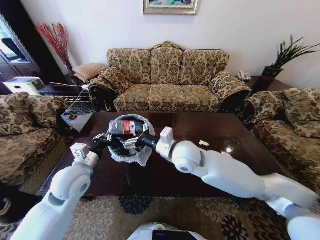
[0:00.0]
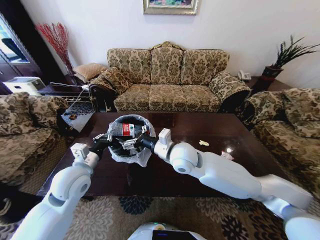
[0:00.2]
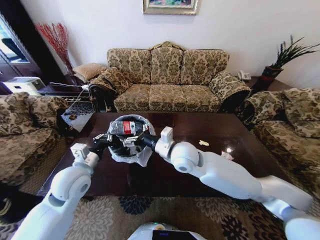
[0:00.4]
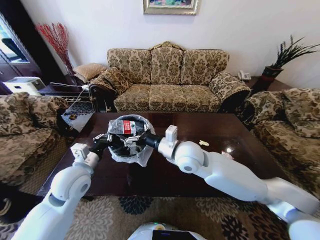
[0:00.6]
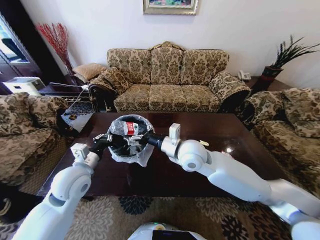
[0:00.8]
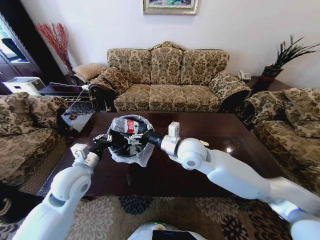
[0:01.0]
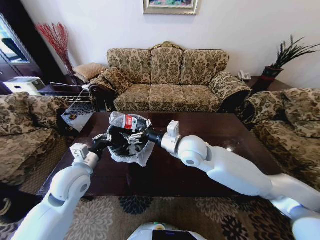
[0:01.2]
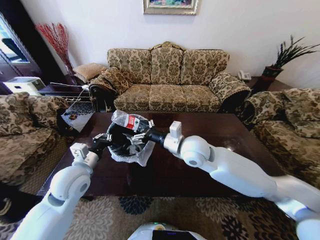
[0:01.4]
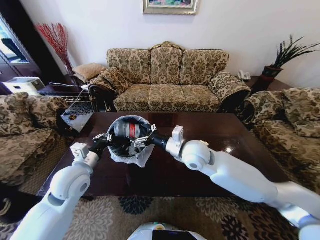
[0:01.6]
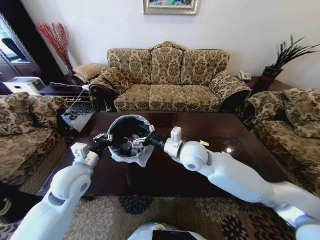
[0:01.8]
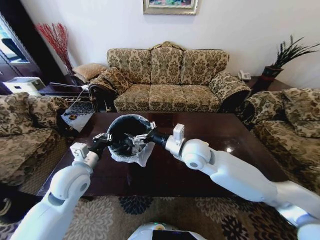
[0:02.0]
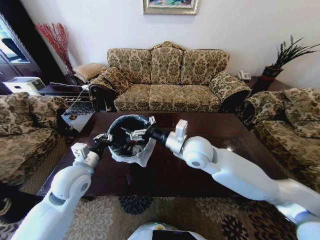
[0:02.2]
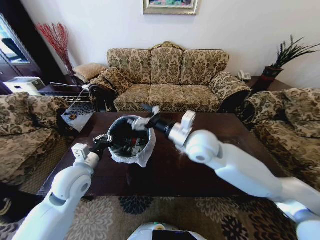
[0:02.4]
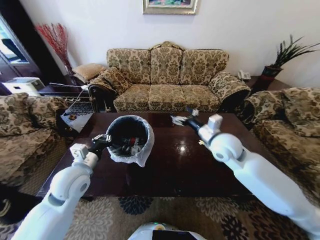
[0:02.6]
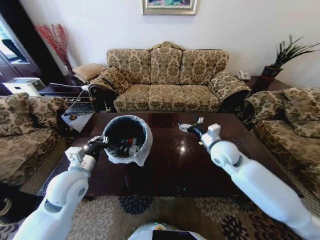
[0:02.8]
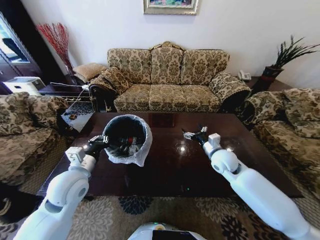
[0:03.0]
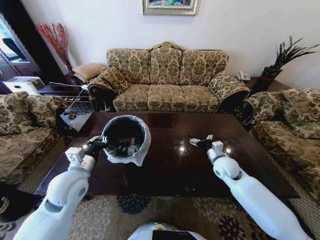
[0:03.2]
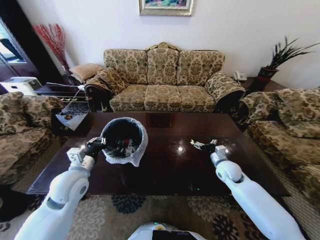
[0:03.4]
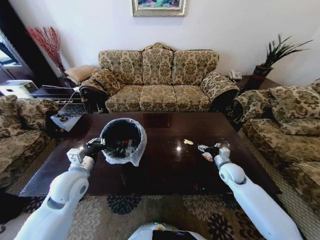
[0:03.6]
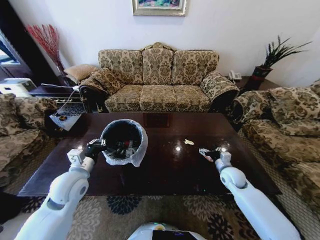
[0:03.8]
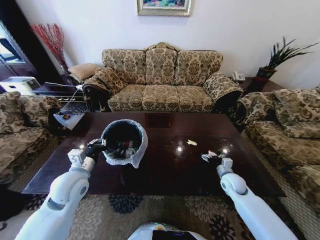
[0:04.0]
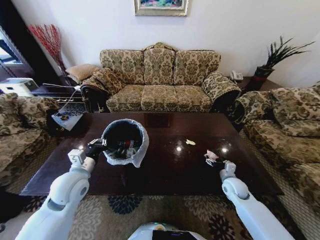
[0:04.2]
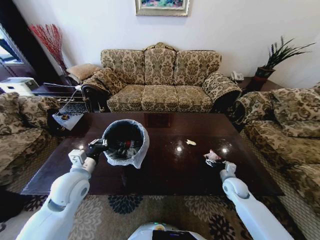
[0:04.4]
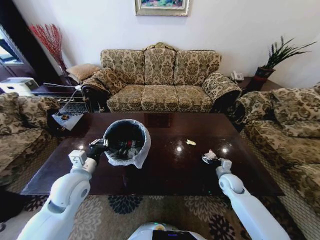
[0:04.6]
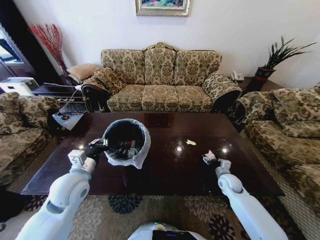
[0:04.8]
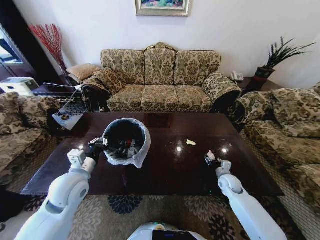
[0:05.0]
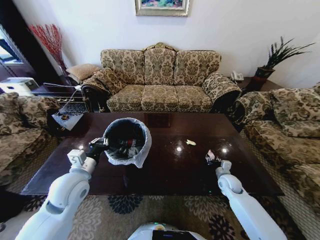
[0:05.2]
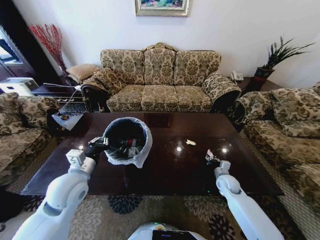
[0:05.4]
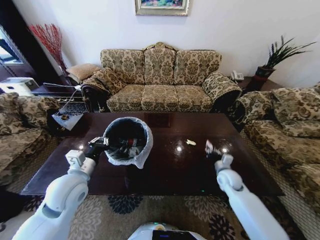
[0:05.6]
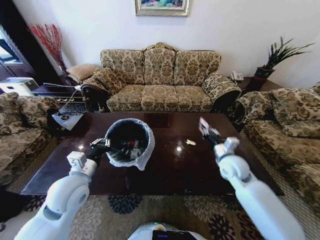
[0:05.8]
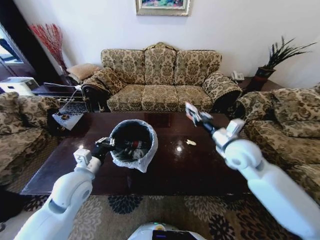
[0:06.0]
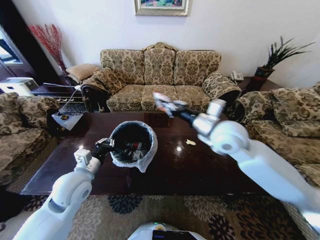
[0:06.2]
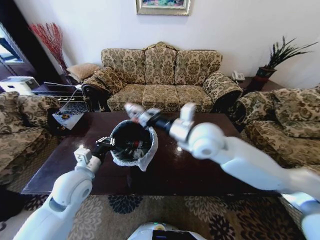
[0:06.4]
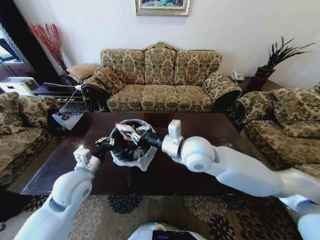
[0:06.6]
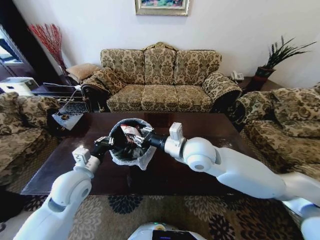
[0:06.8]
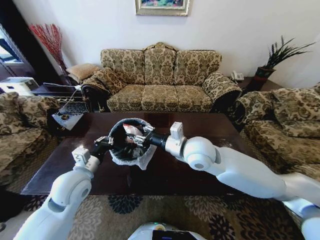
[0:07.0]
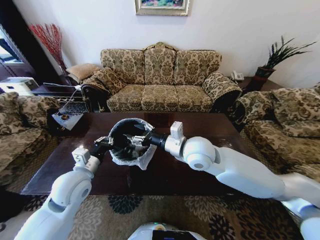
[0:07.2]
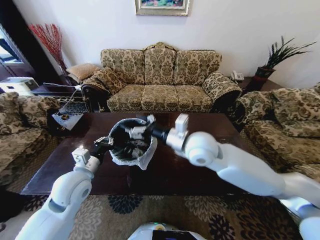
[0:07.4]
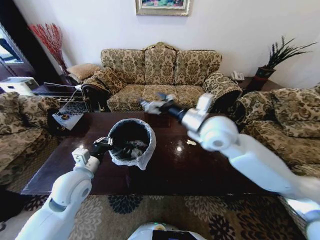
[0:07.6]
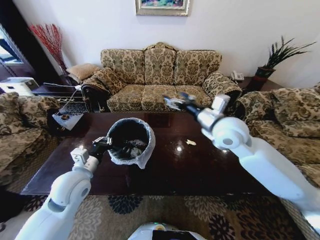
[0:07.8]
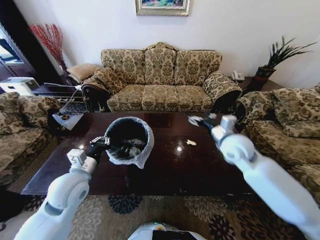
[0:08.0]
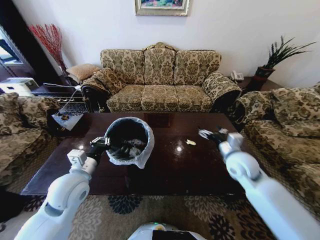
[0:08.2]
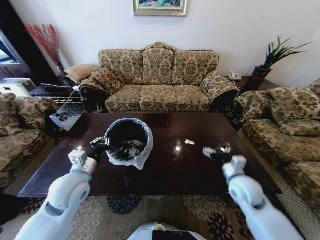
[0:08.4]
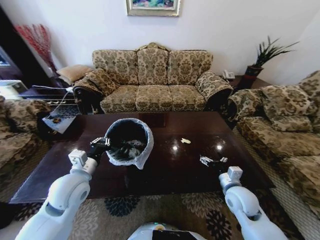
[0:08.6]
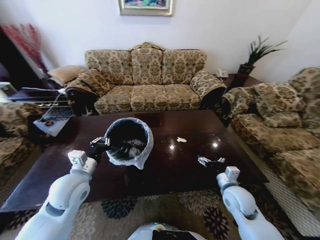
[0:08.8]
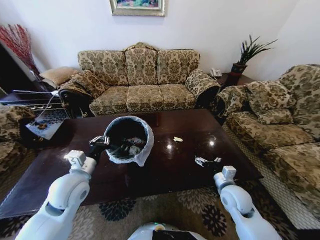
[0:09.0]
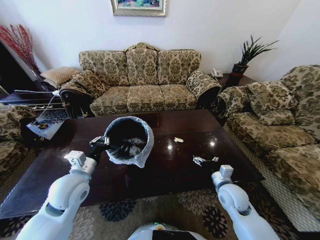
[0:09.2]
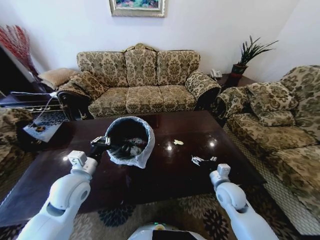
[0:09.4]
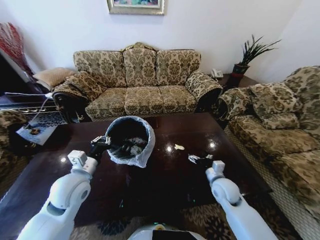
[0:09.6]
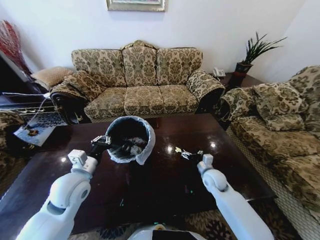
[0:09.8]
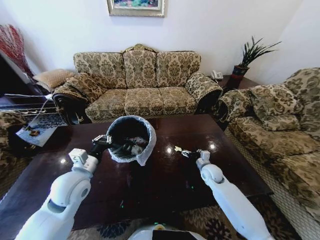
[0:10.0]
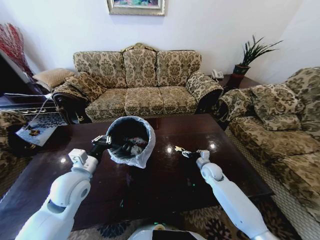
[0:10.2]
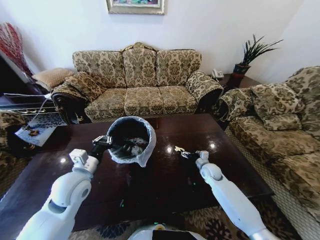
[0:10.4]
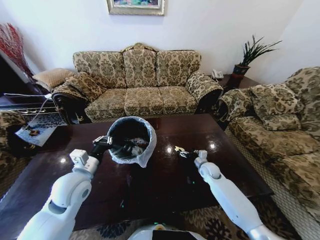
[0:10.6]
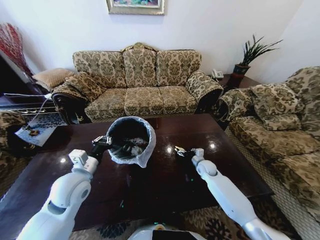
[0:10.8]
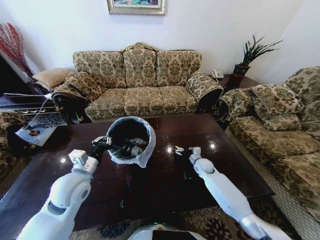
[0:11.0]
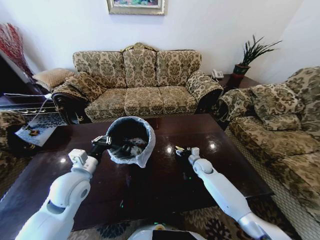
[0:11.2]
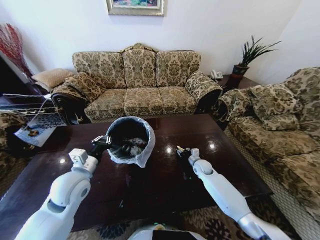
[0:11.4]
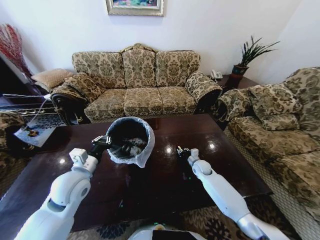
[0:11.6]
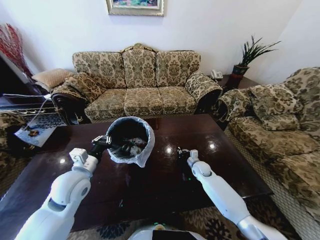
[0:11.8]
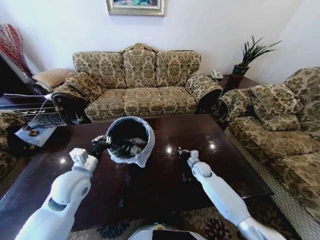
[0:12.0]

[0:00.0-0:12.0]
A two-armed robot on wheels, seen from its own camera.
Task of the whole recording: Move to the front of the table and place the trash on the table into the trash bin.
0:00.0 to 0:01.6: The grippers stay close to where they were, moving slightly.
0:01.6 to 0:03.0: The right gripper moves to the right and downward, some 20 cm.
0:03.0 to 0:04.4: The right gripper moves downward and to the right, about 20 cm.
0:04.4 to 0:06.0: The right gripper goes some 30 cm upward, and closes.
0:06.0 to 0:07.6: The right gripper heads to the left and upward, covering some 15 cm, and opens.
0:07.6 to 0:09.0: The right gripper travels downward and to the right by approximately 30 cm.
0:09.0 to 0:10.4: The right gripper travels forward and downward by some 15 cm.
0:10.4 to 0:12.0: The right gripper closes up.

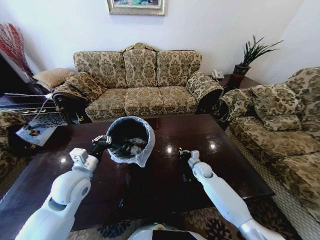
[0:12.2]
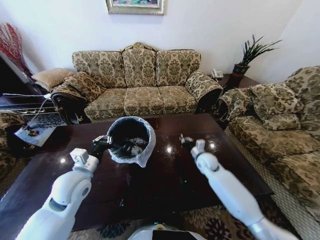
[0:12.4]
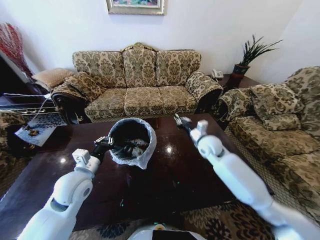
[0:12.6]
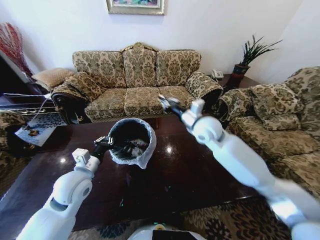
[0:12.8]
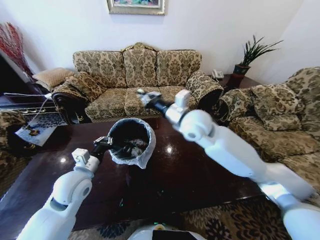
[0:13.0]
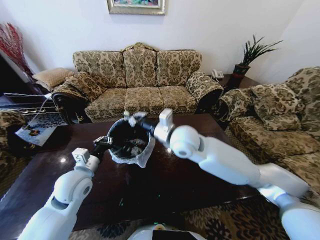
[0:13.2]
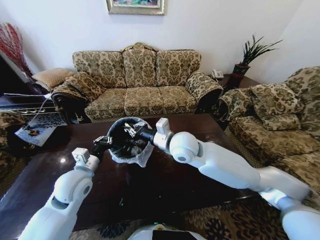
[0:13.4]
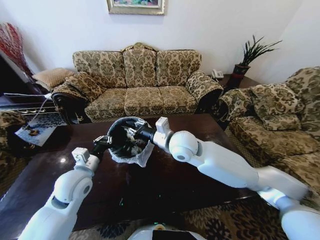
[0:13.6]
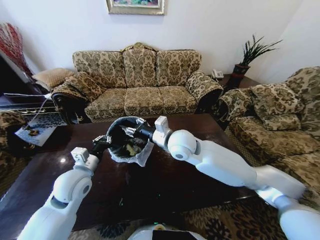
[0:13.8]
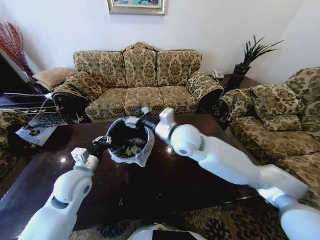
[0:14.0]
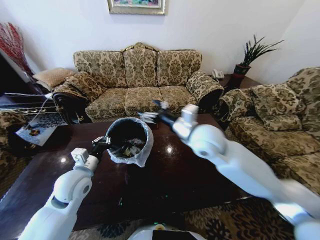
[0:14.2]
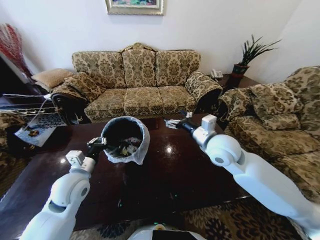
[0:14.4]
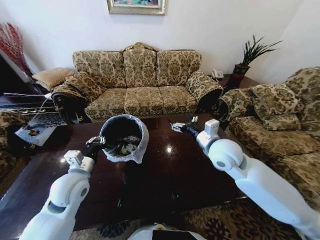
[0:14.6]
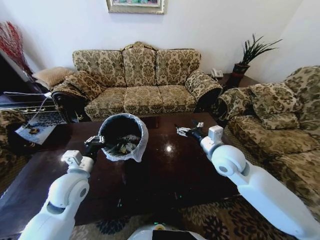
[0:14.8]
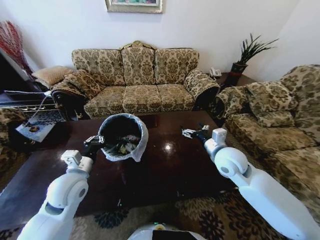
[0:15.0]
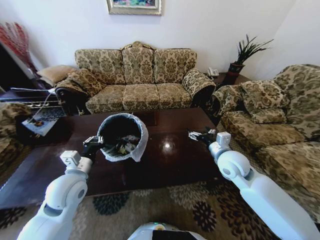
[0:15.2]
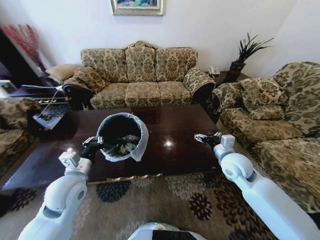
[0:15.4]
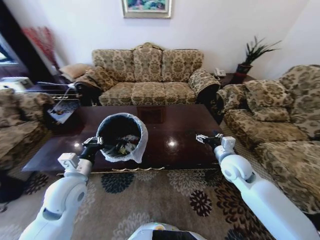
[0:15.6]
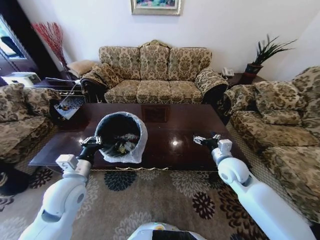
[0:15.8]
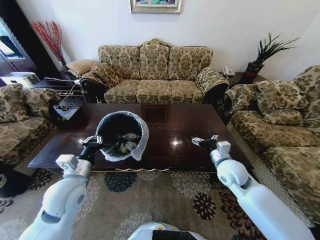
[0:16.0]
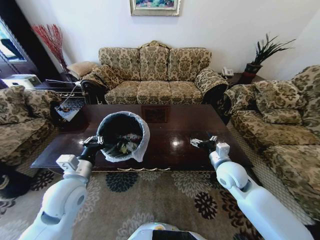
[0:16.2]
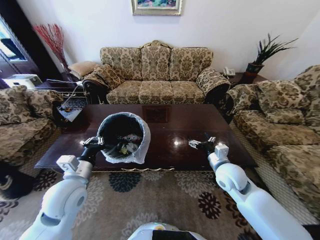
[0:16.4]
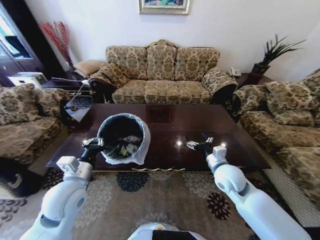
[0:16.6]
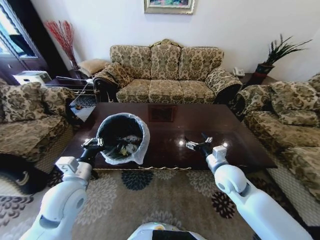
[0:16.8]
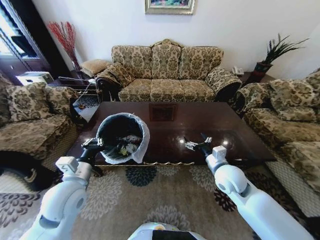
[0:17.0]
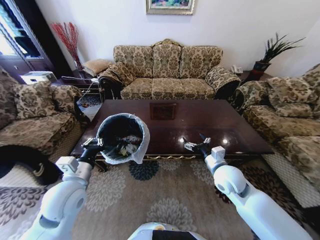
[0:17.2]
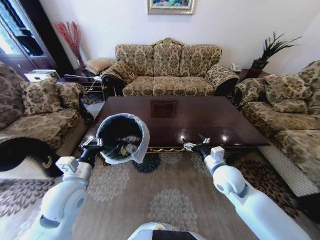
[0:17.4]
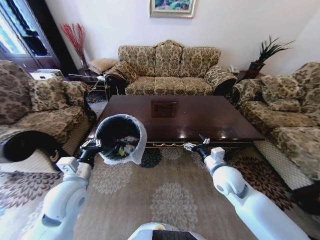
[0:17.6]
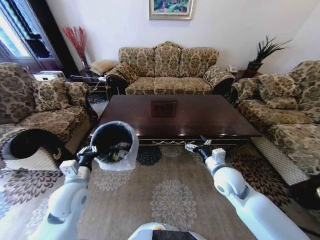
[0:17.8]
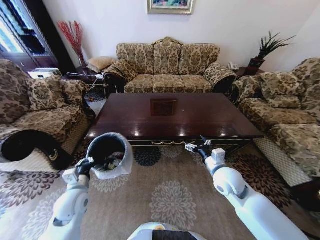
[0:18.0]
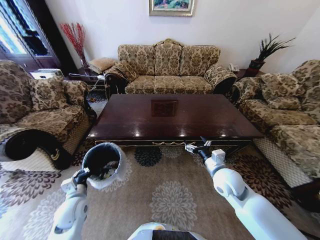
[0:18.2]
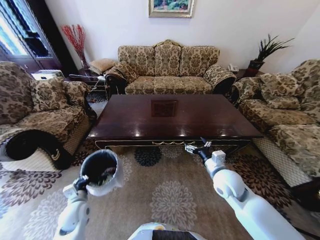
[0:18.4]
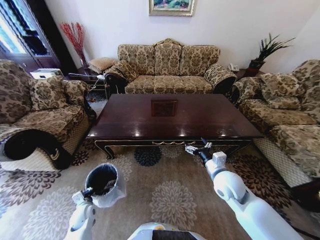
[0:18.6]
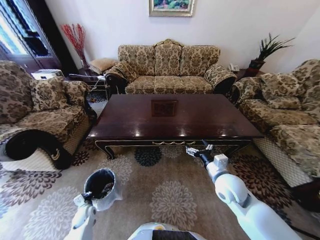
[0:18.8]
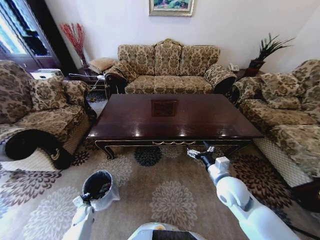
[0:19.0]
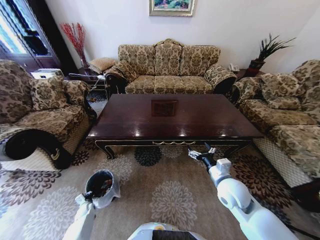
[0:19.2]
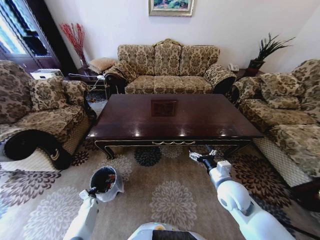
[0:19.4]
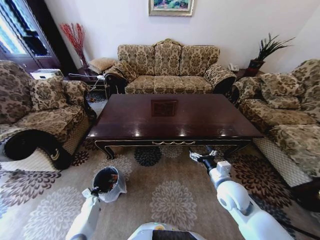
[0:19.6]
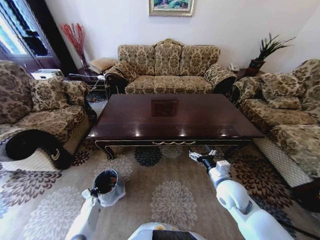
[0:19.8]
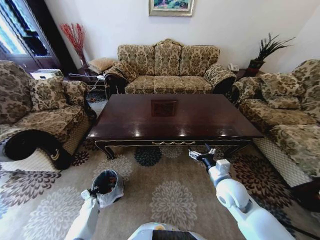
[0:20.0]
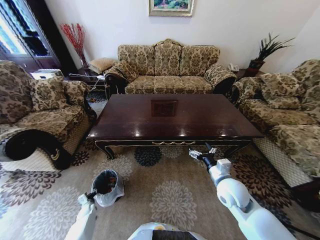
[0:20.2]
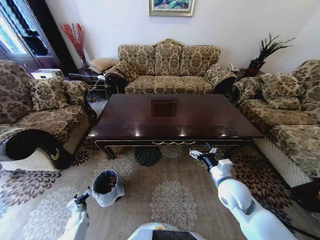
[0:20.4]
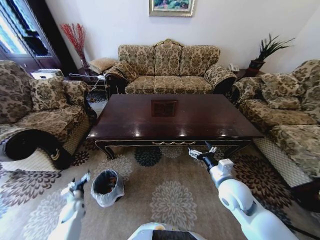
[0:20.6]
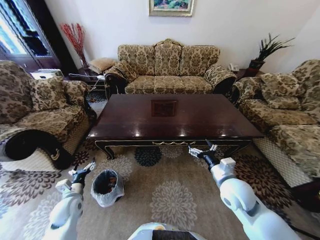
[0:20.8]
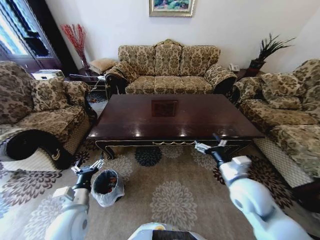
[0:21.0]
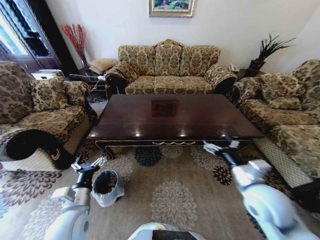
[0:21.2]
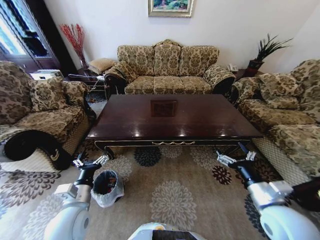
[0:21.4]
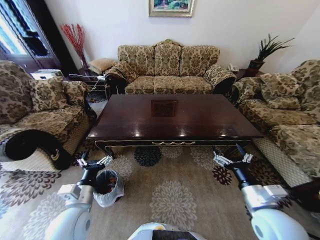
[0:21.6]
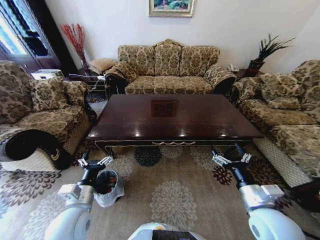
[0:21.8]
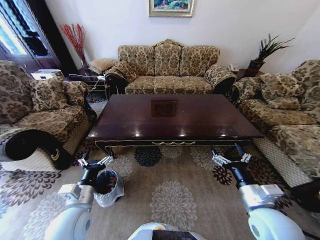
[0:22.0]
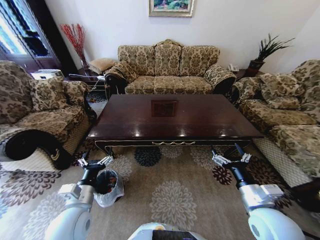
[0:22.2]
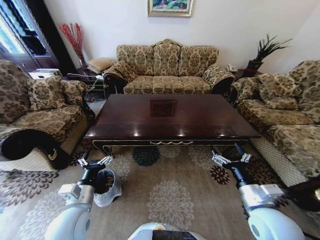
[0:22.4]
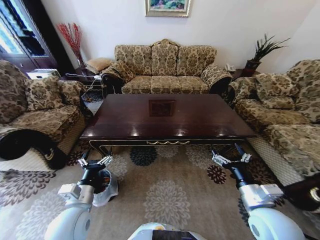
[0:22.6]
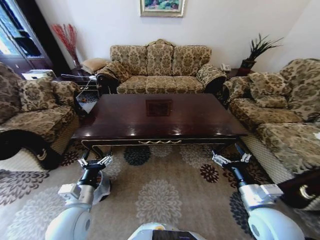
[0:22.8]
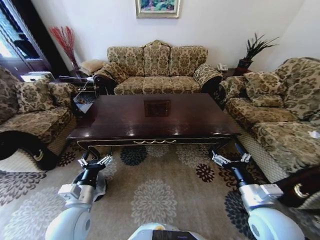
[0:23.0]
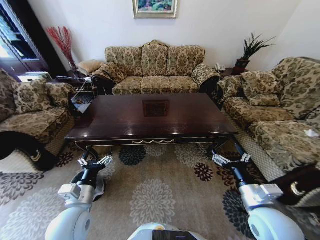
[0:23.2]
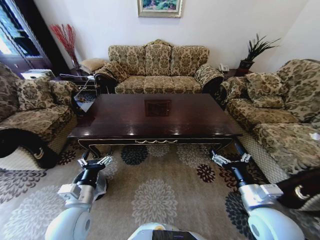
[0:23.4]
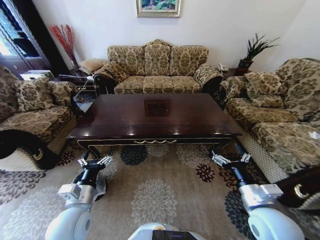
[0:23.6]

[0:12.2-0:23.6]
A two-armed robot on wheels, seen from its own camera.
Task of the whole recording: Move to the front of the table and place the trash on the table into the trash bin.
0:12.2 to 0:13.6: The right gripper heads upward and to the left, covering about 35 cm.
0:13.6 to 0:15.0: The right gripper moves to the right, some 15 cm, and opens its fingers.
0:15.0 to 0:16.4: The right gripper moves downward, approximately 5 cm.
0:16.4 to 0:17.8: The left gripper moves some 5 cm.
0:17.8 to 0:19.4: The right gripper moves roughly 5 cm. The left gripper shifts roughly 40 cm downward.
0:19.4 to 0:20.8: The left gripper moves upward, about 25 cm, and opens.
0:20.8 to 0:22.2: The right gripper heads backward, covering approximately 10 cm. Meanwhile the left gripper travels upward, to the right and backward by roughly 20 cm.
